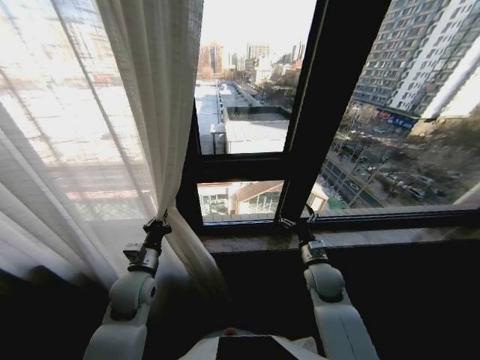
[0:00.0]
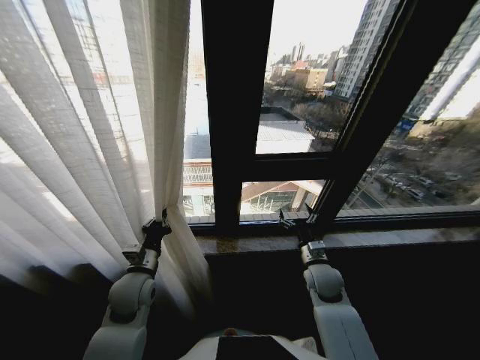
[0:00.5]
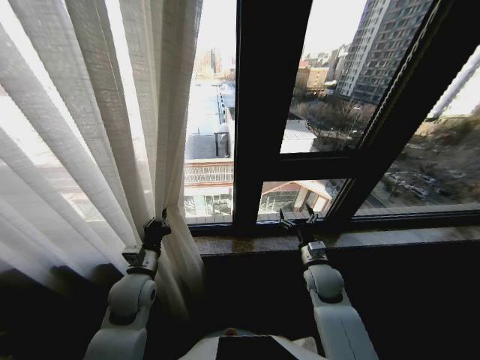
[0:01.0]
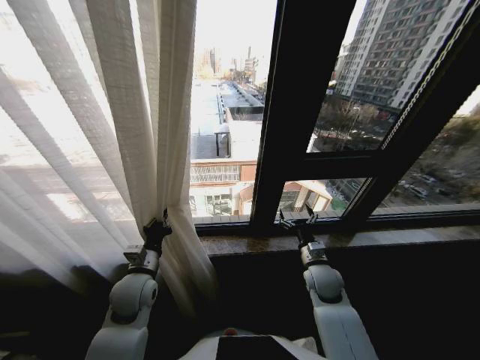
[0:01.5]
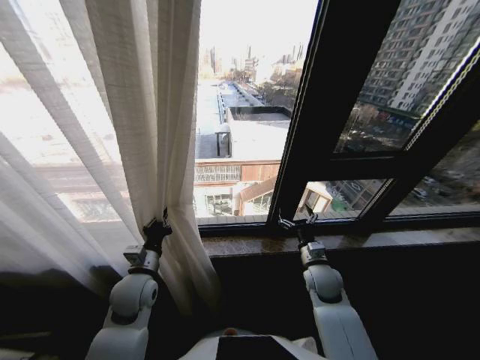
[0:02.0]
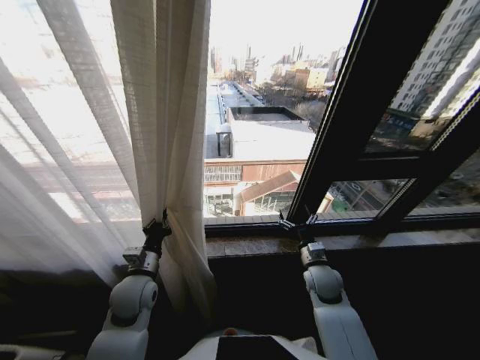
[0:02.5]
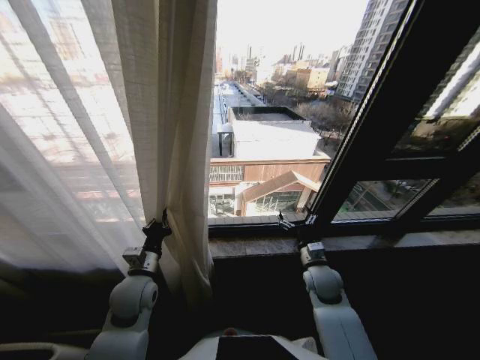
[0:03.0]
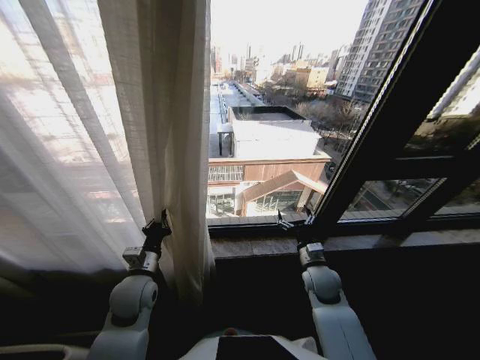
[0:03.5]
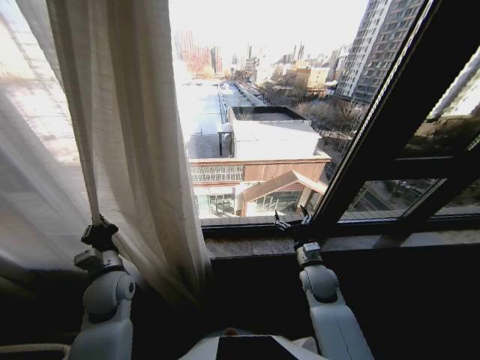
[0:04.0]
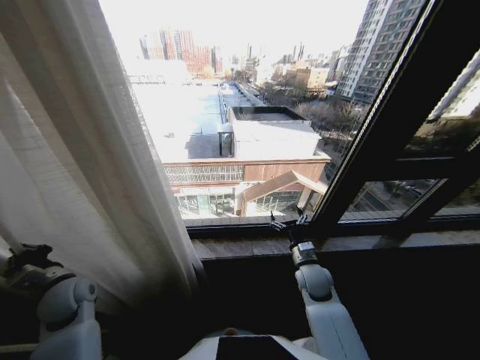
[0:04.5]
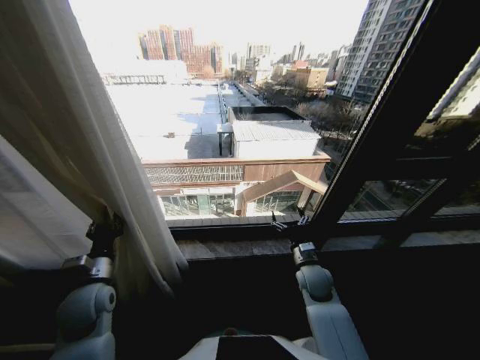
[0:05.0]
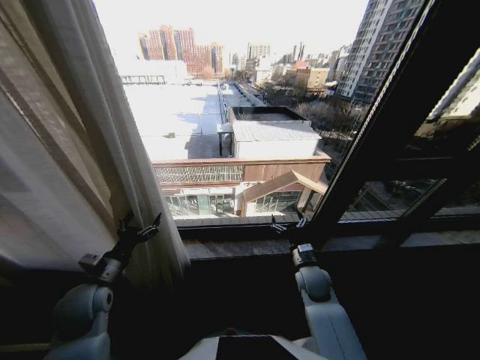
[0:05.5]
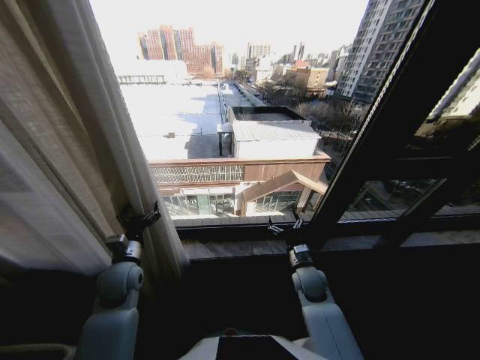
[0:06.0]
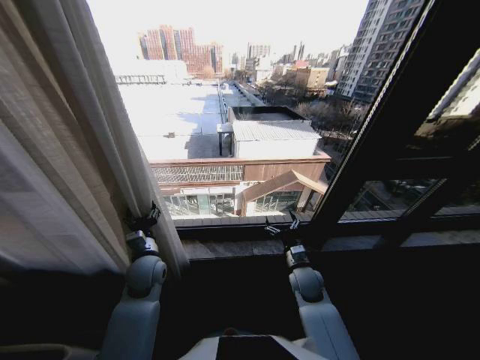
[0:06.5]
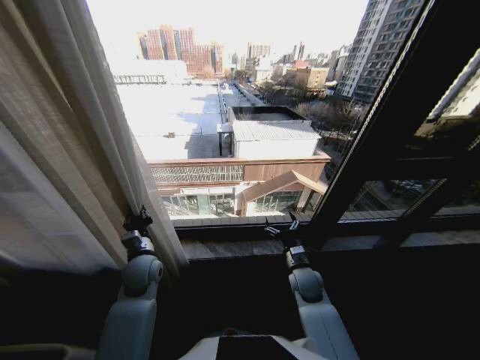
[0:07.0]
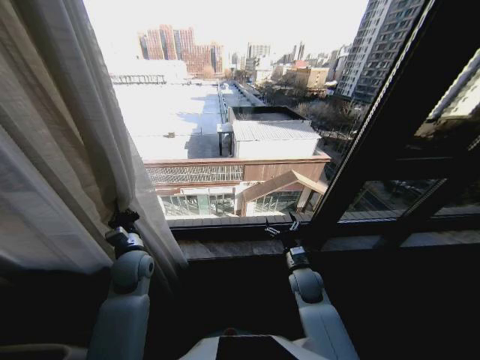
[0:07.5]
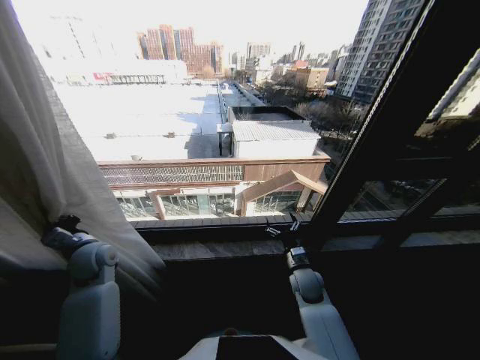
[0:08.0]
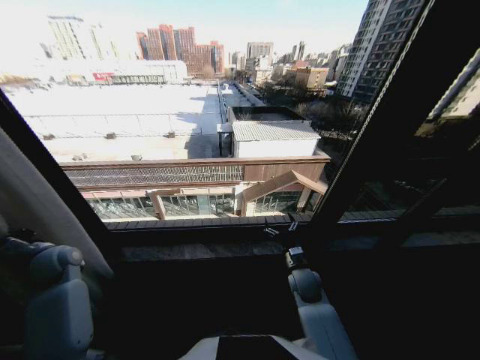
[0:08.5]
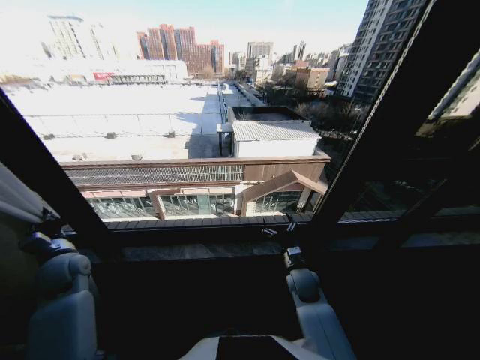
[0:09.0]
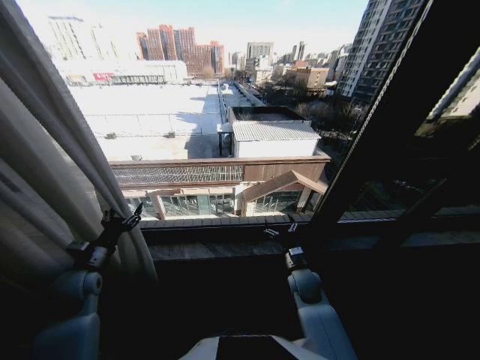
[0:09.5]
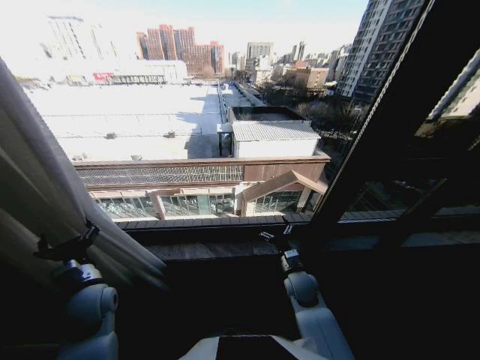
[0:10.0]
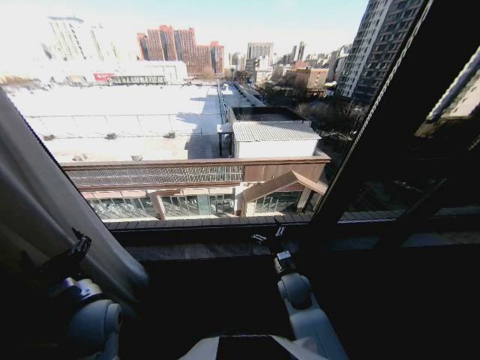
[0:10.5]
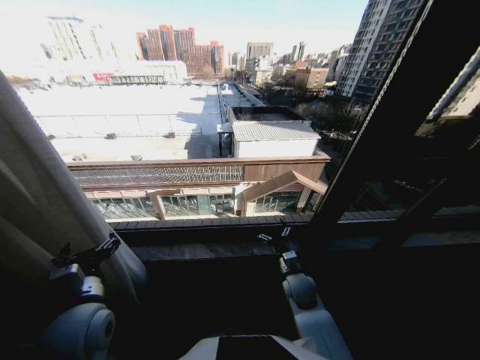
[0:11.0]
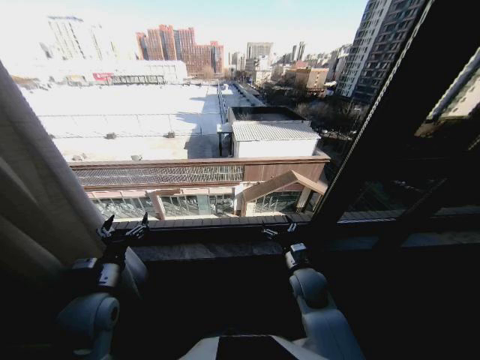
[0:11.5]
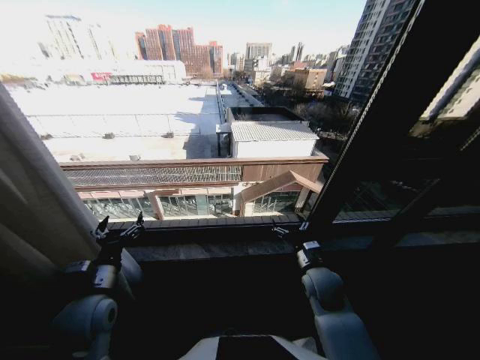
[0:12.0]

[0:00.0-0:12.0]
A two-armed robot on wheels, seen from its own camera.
Task of the whole recording: Open the curtains by pulling them apart, changing their state from closed to fully open.
0:02.0 to 0:04.0: The left gripper travels to the left by about 5 cm.
0:04.0 to 0:06.0: The left gripper travels to the left and back again, some 10 cm each way, and opens up.
0:06.0 to 0:08.0: The left gripper heads to the left, covering some 5 cm, and closes its fingers.
0:08.0 to 0:10.0: The left gripper goes some 10 cm backward, goes to the left and returns, approximately 10 cm each way, and opens up.
0:10.0 to 0:12.0: The right gripper shifts roughly 5 cm upward.
